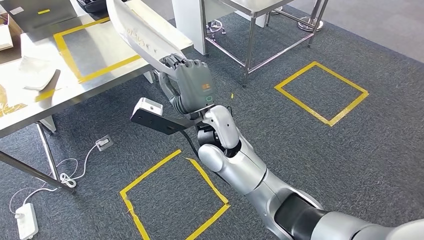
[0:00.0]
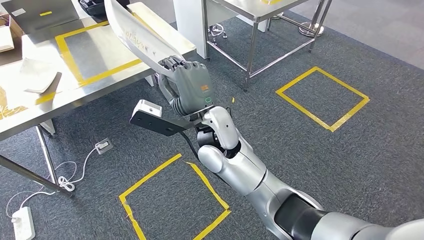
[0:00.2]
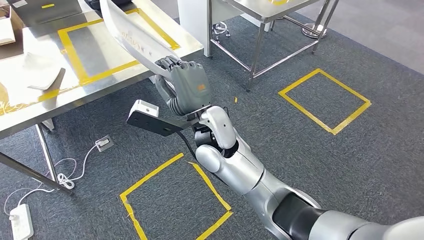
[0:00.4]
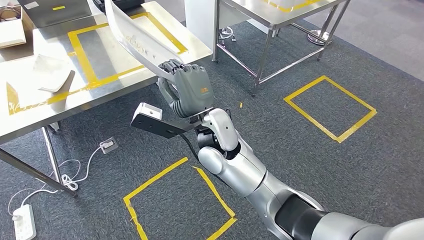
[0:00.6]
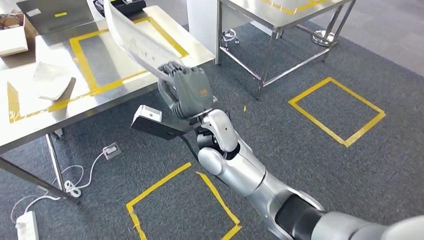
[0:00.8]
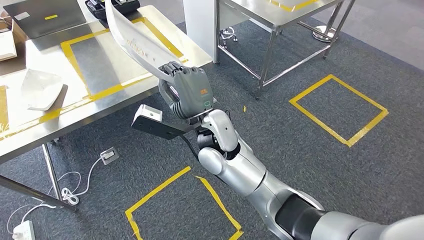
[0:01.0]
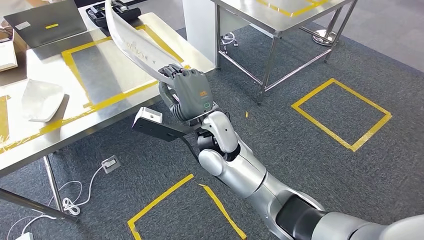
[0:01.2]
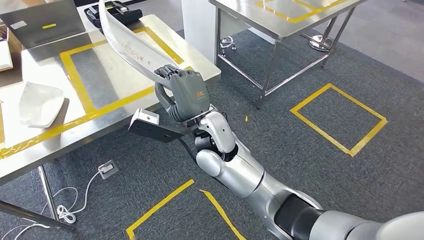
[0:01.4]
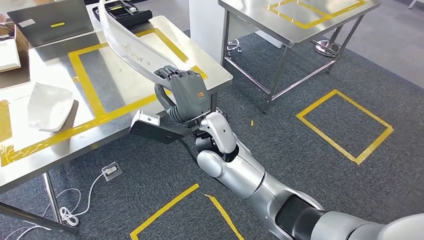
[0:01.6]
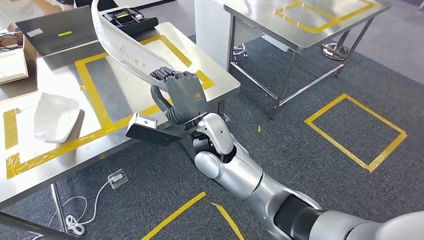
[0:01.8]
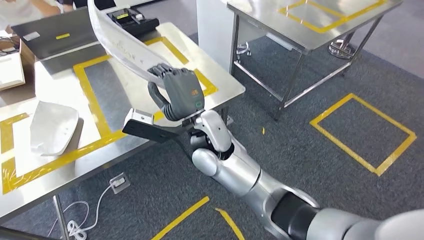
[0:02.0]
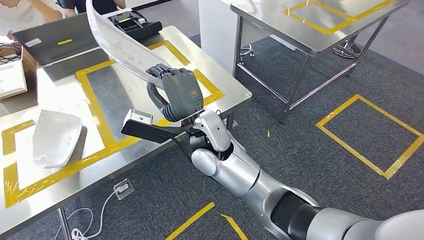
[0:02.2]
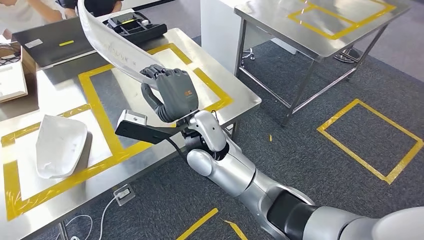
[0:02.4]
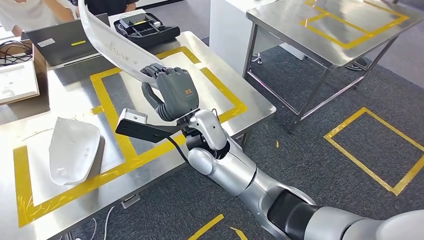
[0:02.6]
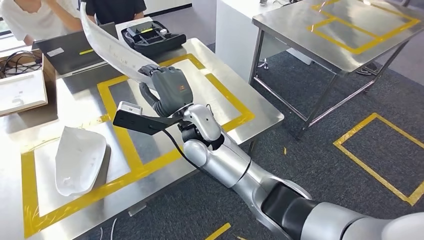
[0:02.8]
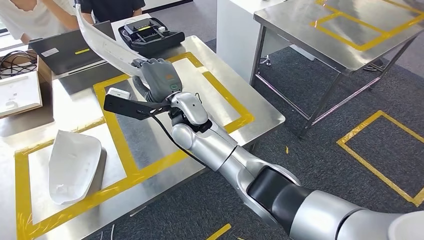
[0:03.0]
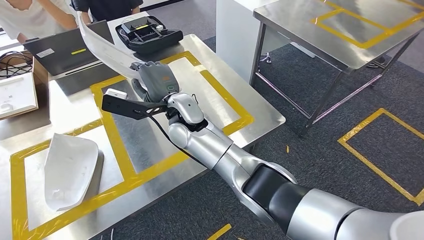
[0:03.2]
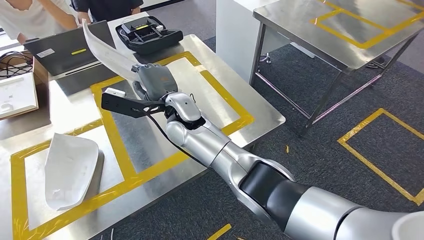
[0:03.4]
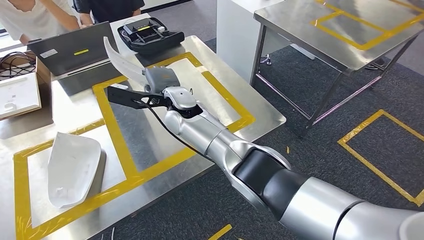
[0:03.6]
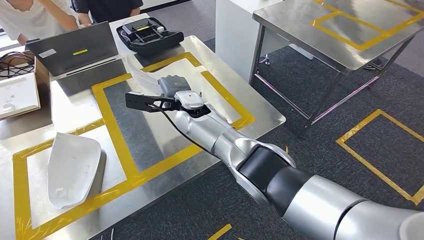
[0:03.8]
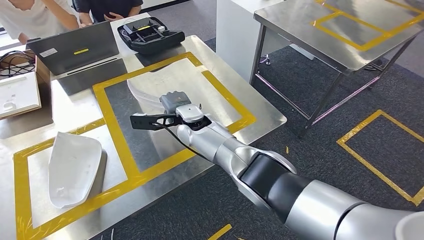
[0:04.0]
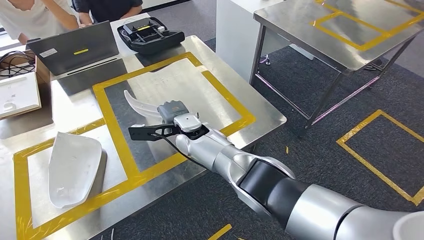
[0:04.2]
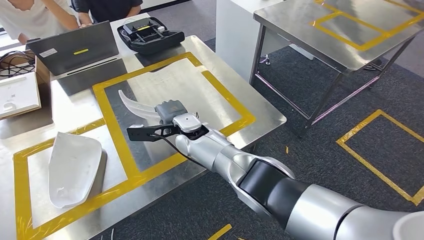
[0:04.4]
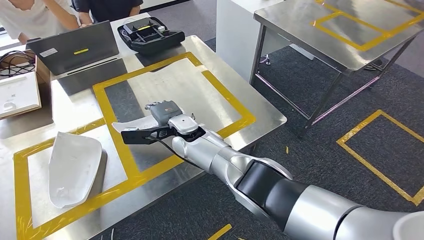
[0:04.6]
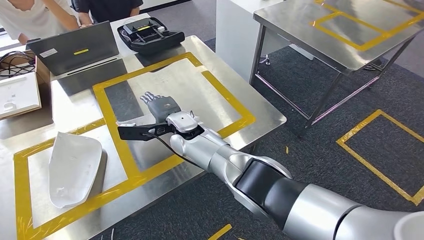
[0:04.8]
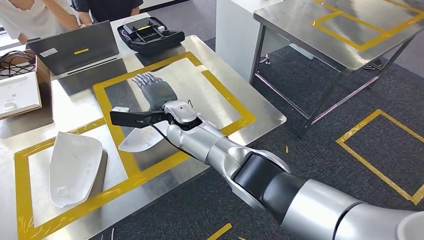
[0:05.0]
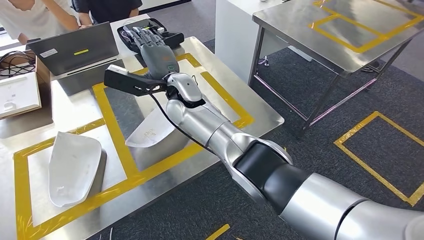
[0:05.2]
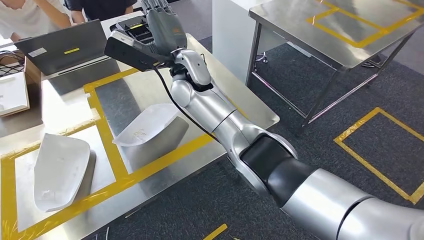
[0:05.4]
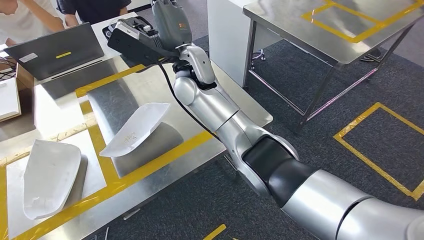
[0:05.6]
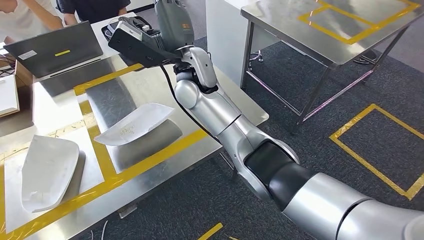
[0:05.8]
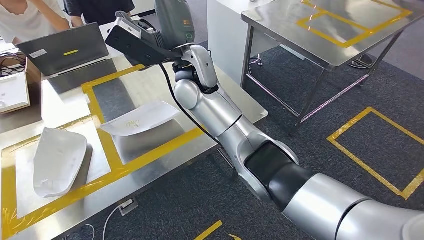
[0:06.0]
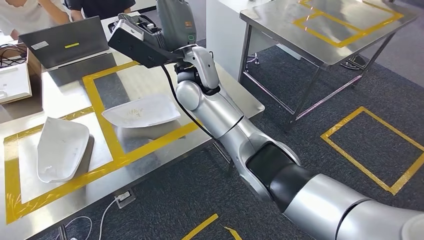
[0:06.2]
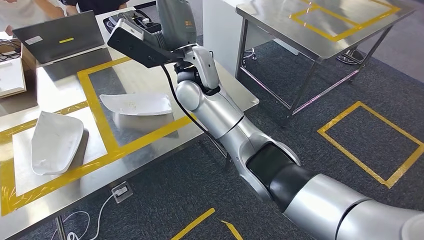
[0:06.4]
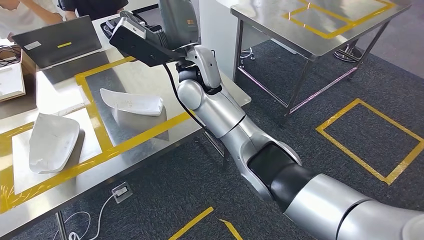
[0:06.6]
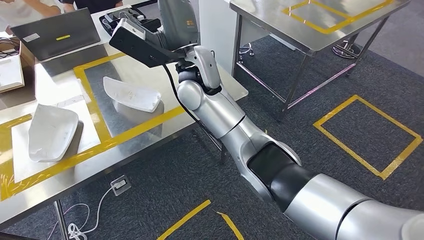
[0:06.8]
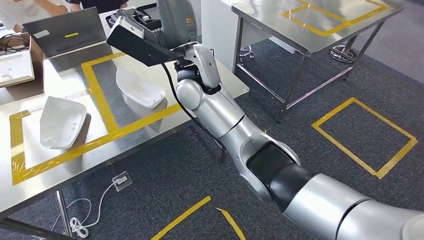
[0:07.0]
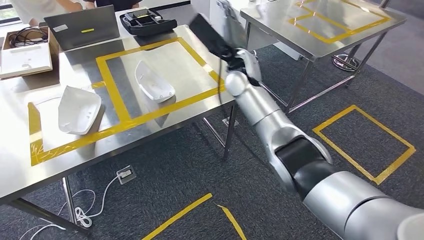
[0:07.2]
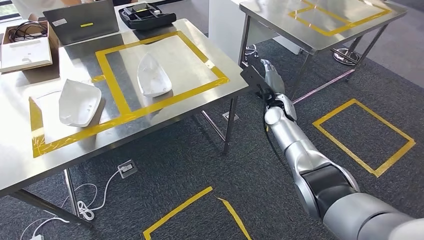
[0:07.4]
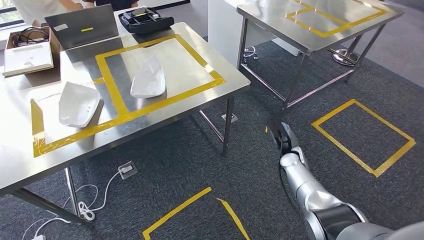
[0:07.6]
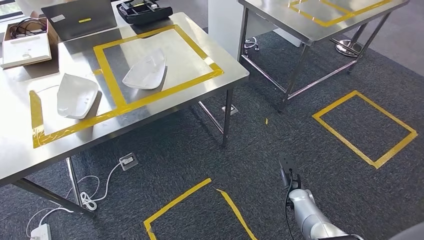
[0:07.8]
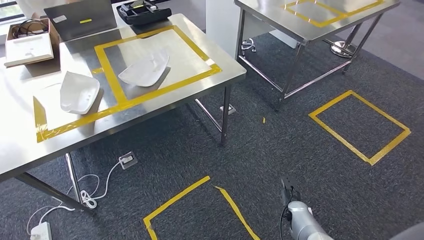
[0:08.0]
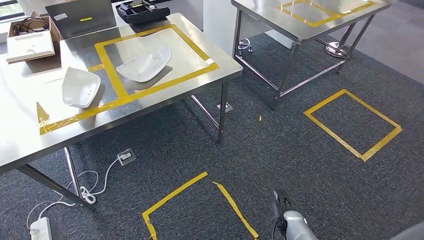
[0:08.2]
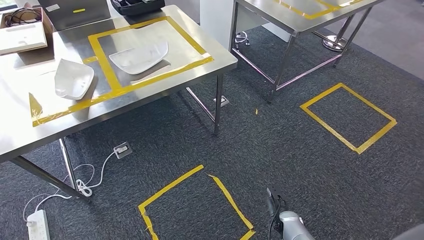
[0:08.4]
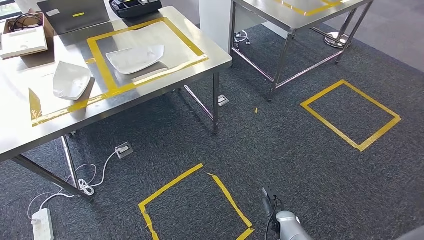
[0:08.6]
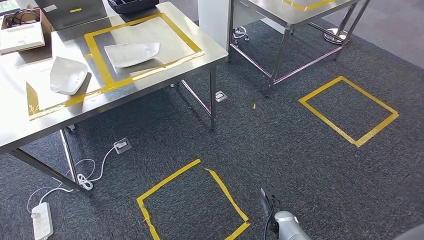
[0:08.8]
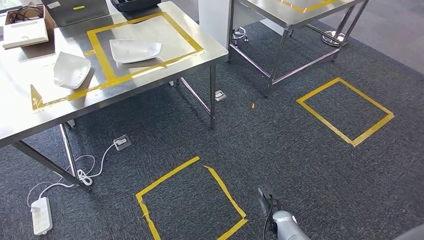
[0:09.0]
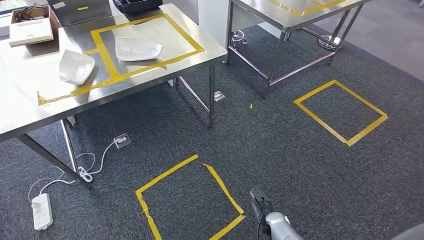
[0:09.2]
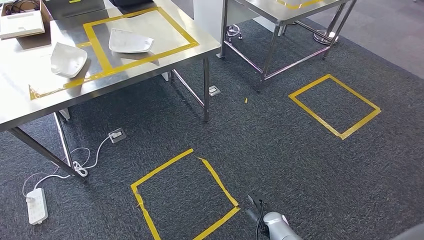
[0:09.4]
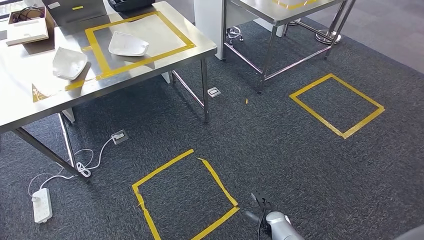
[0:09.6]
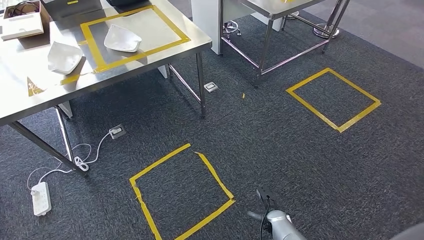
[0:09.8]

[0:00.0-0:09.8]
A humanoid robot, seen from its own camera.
Step, 0:00.0 to 0:05.8: Insert the small component into the corresponding slot on the workbench.
Step, 0:06.0 to 0:09.8: Return to the initial position at the workbench.

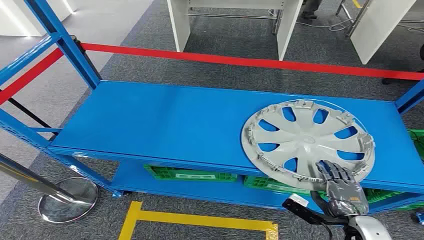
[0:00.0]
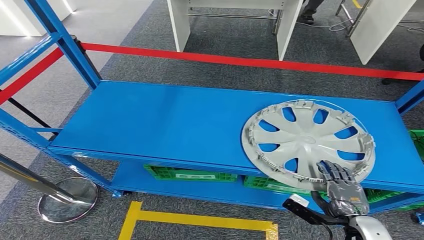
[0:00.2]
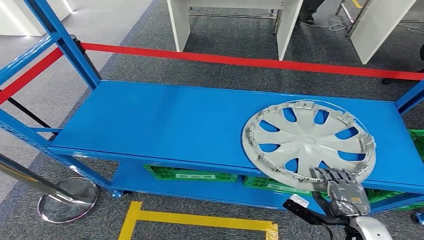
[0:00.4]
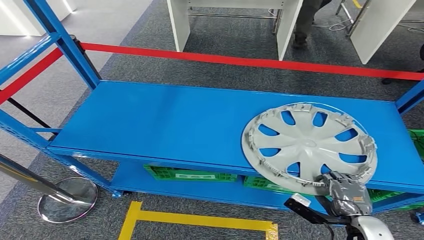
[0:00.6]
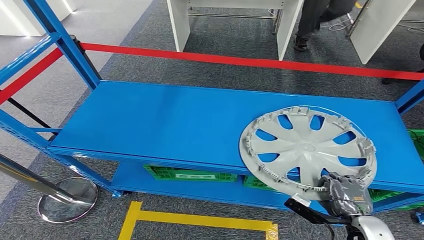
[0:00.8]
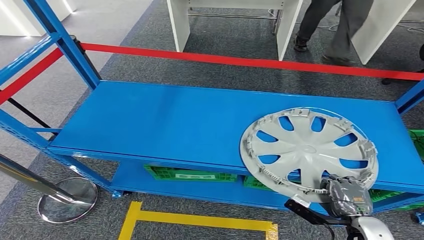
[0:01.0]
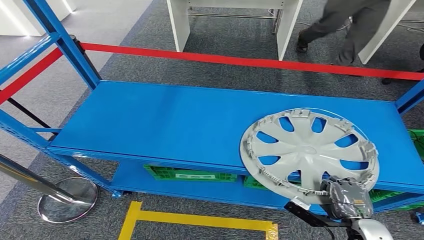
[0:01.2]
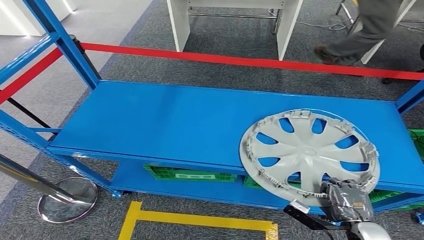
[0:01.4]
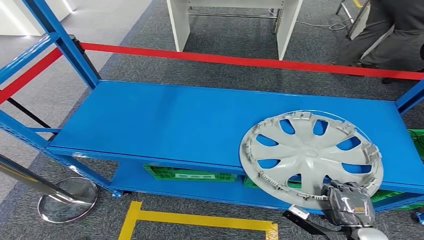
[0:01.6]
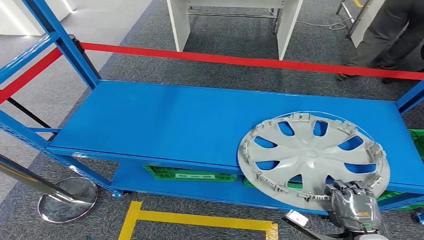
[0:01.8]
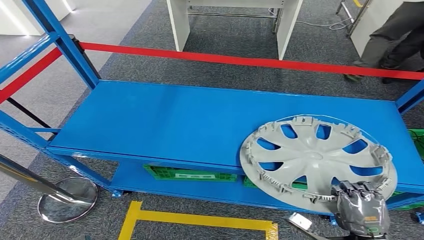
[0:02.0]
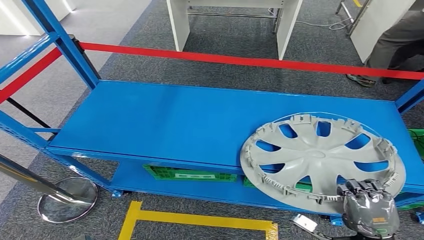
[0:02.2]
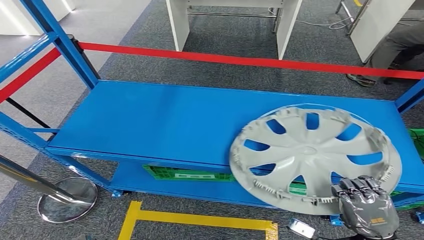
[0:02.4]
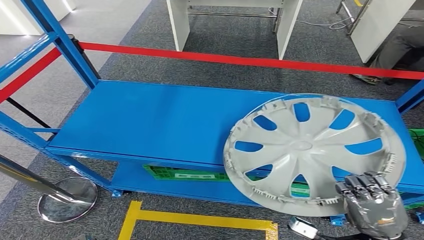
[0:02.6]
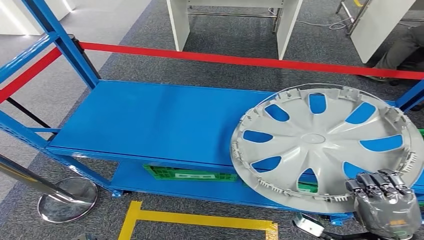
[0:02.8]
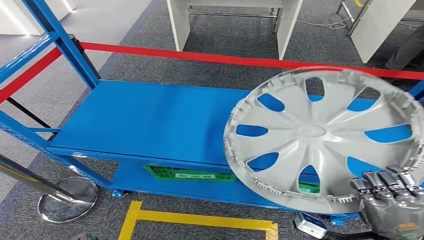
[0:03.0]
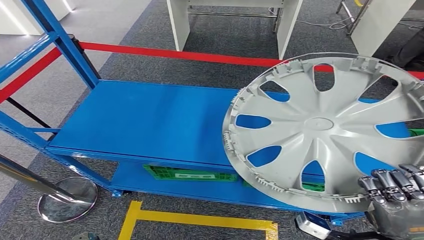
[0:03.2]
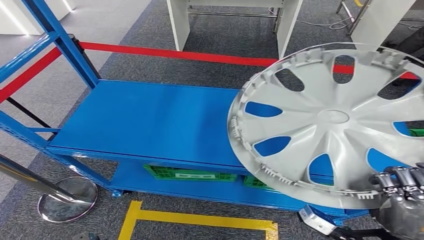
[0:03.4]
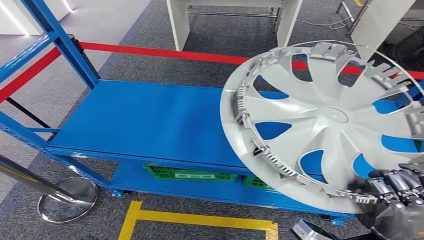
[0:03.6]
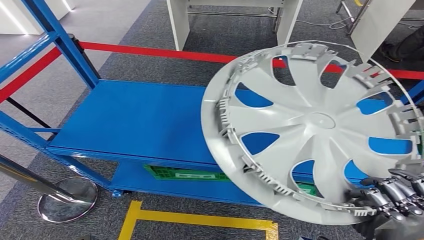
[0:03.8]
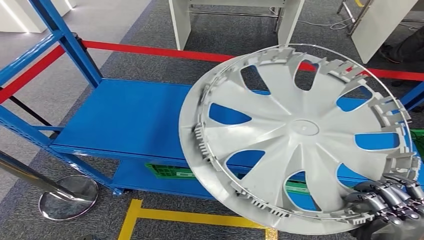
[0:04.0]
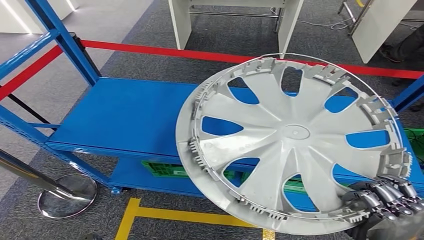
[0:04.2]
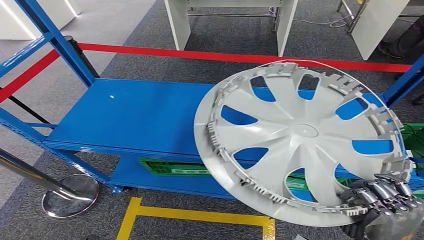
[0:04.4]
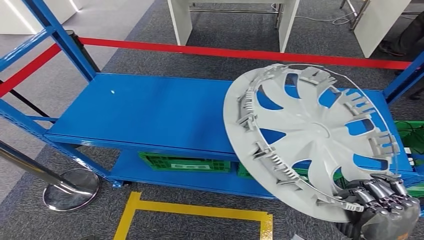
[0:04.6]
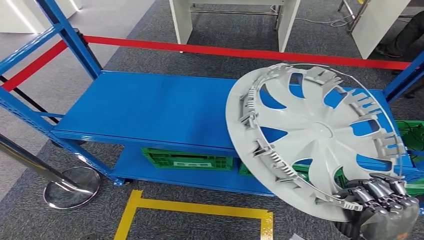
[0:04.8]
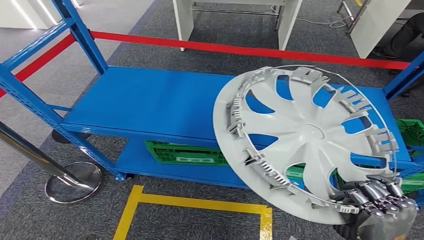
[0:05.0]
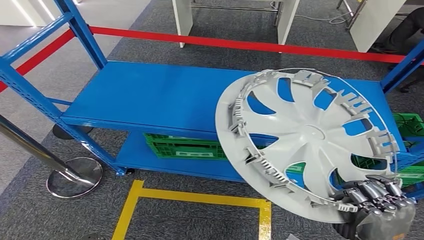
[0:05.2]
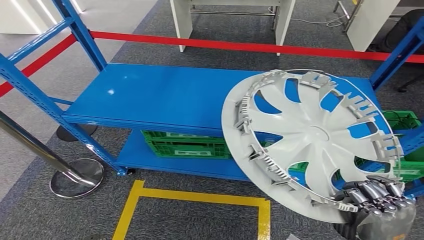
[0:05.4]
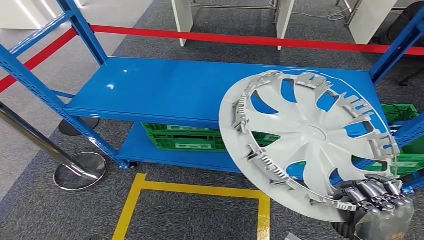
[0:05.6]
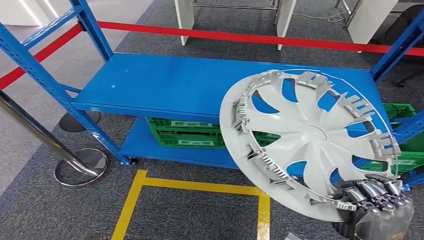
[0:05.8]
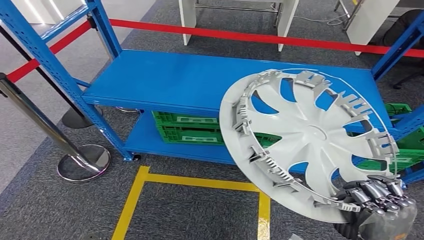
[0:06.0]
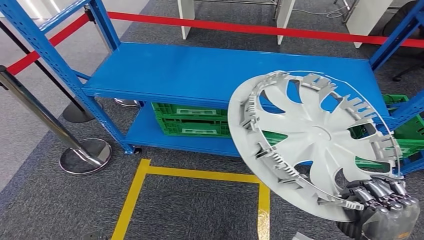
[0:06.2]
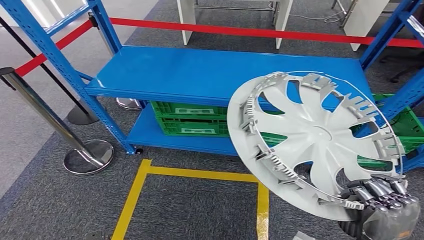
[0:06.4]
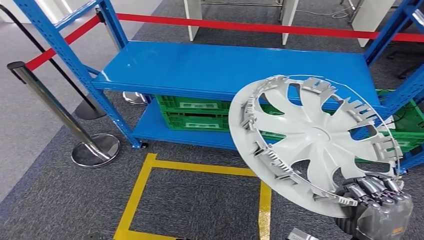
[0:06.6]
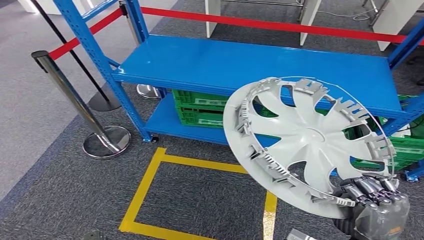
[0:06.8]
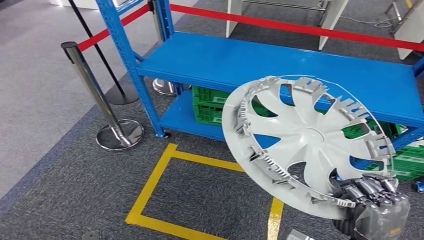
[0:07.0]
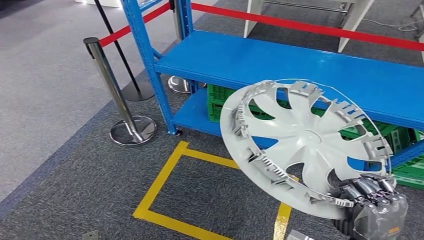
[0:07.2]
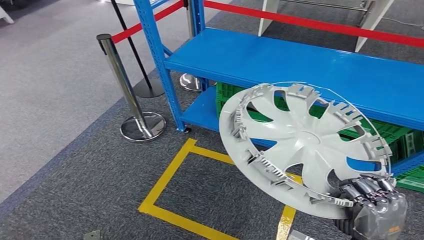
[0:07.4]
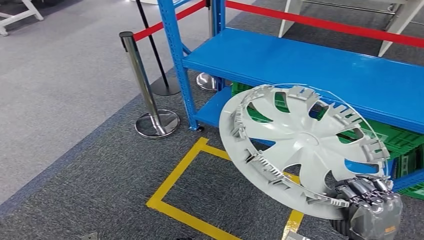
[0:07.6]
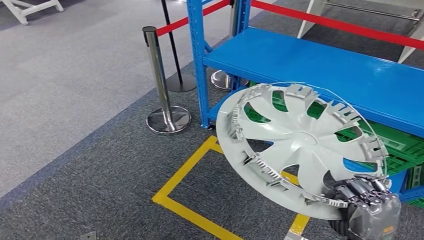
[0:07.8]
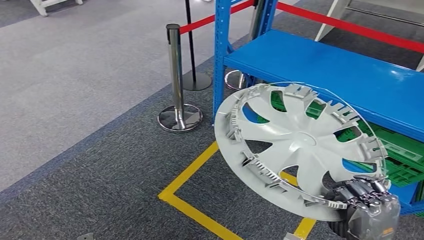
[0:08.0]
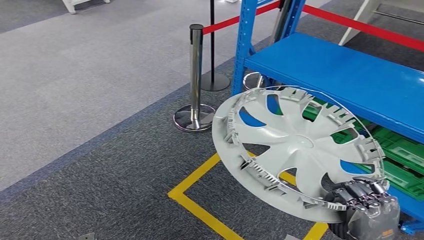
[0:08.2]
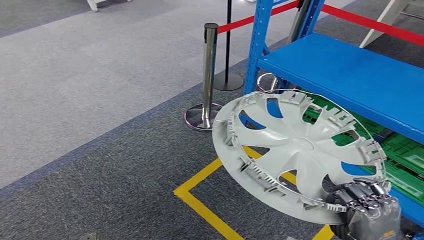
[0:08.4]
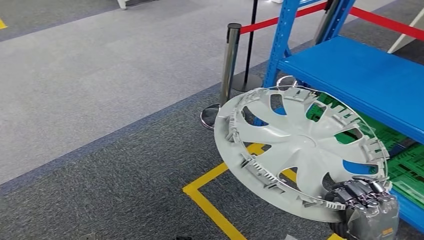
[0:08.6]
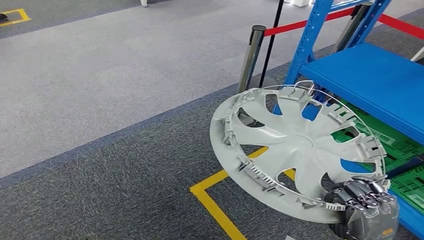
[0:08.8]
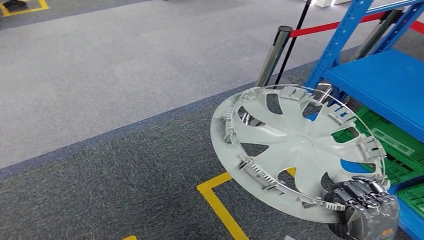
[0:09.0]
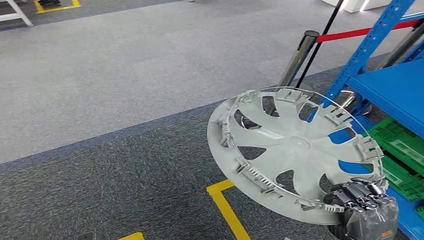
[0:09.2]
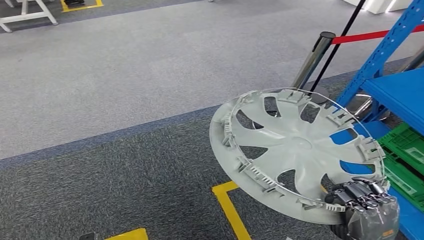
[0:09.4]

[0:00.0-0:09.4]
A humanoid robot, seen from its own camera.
Step, 0:00.0 to 0:03.4: Pick up the small component from the shelf.
